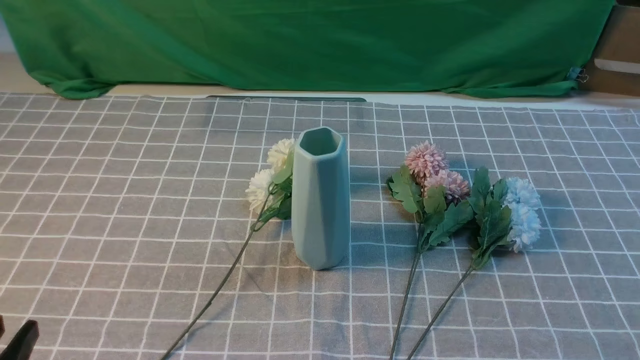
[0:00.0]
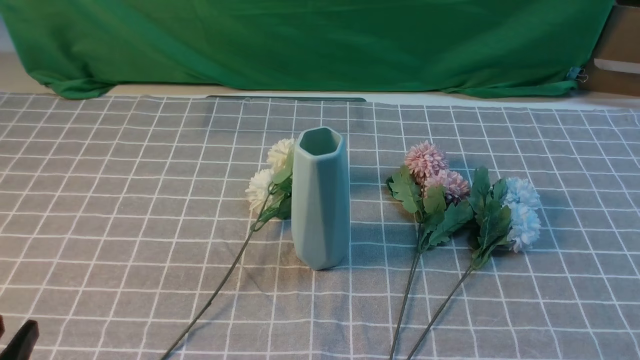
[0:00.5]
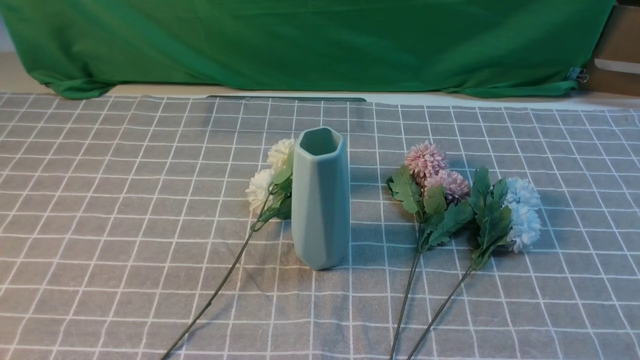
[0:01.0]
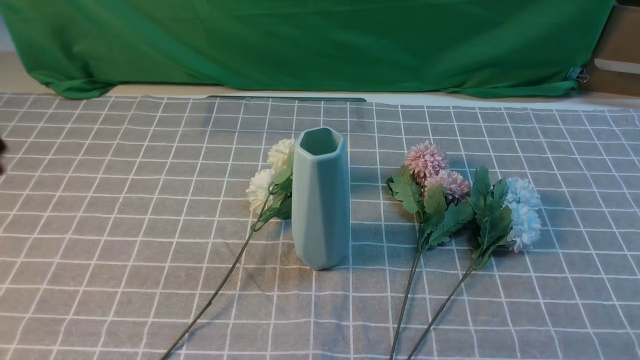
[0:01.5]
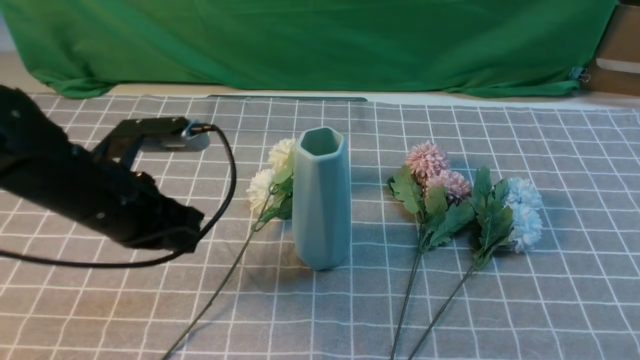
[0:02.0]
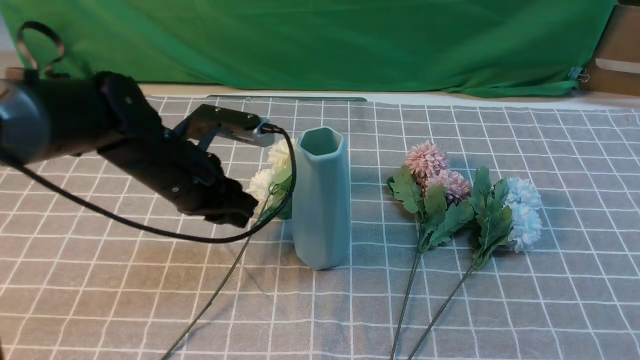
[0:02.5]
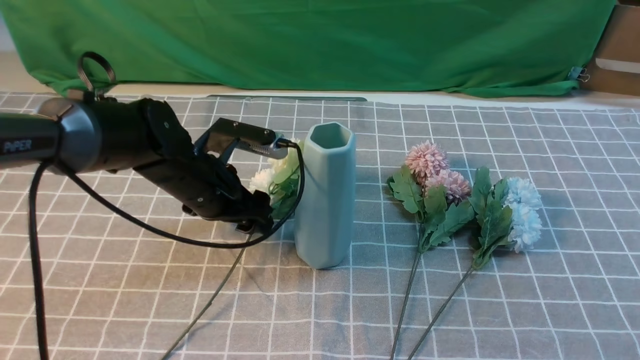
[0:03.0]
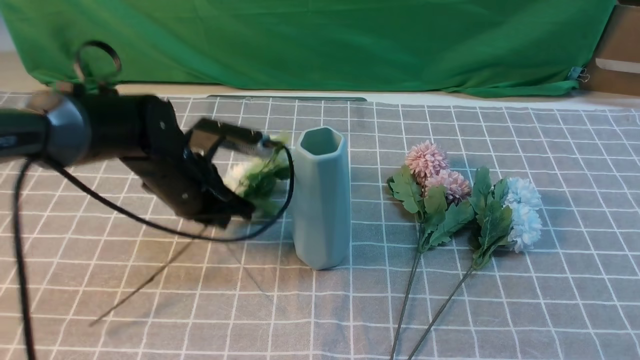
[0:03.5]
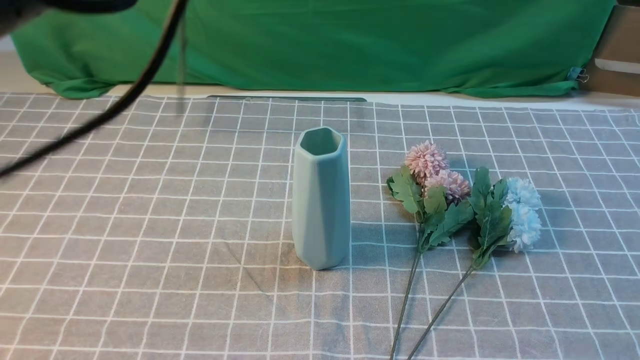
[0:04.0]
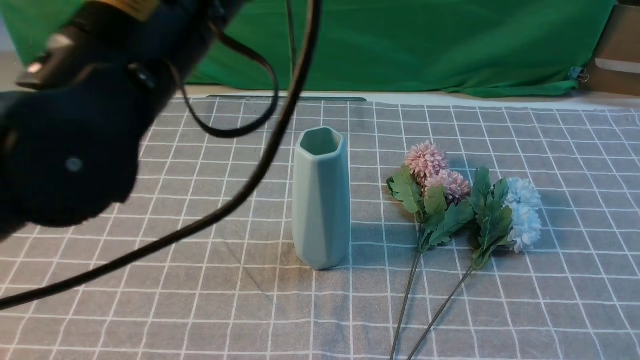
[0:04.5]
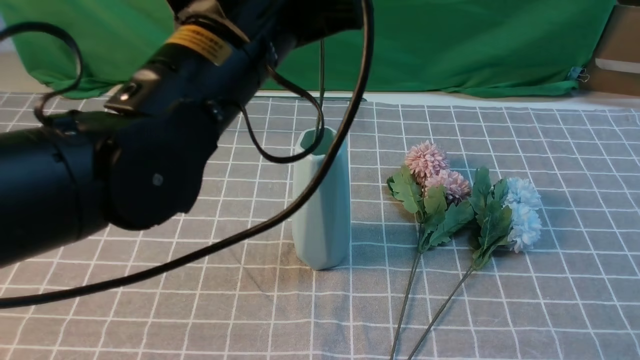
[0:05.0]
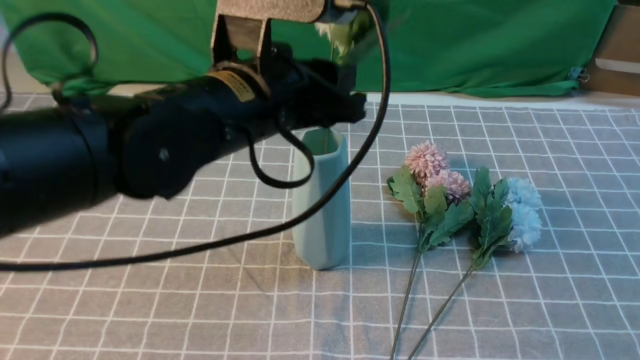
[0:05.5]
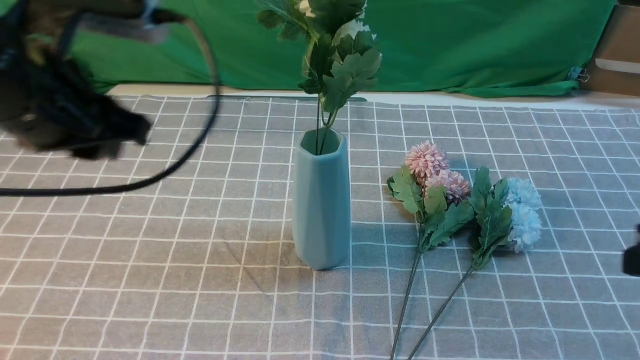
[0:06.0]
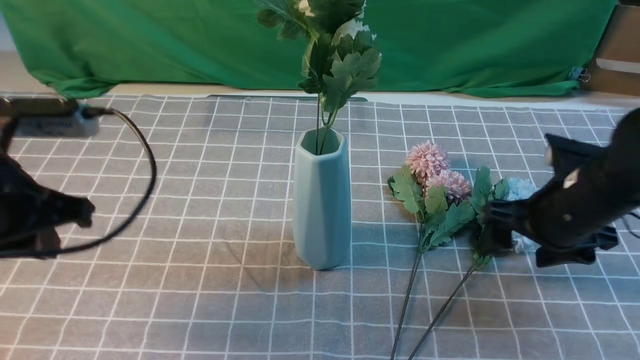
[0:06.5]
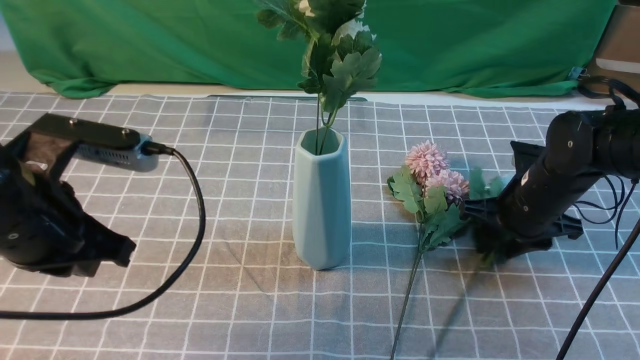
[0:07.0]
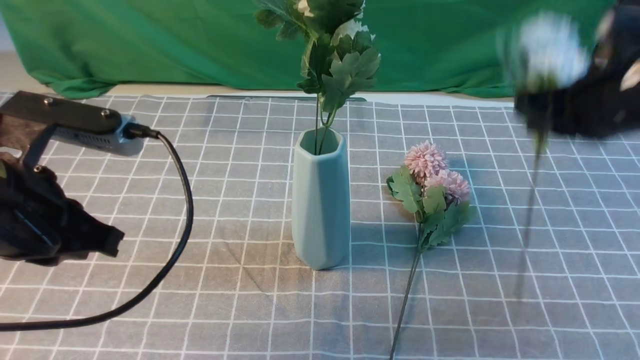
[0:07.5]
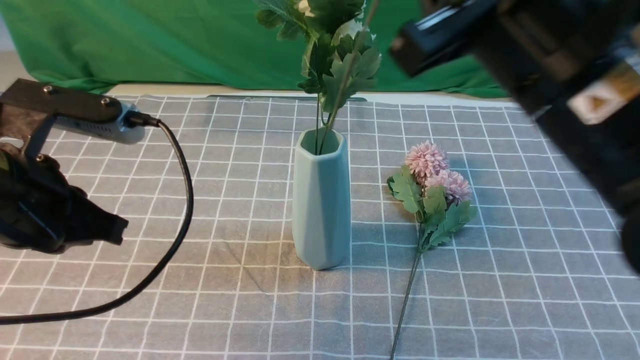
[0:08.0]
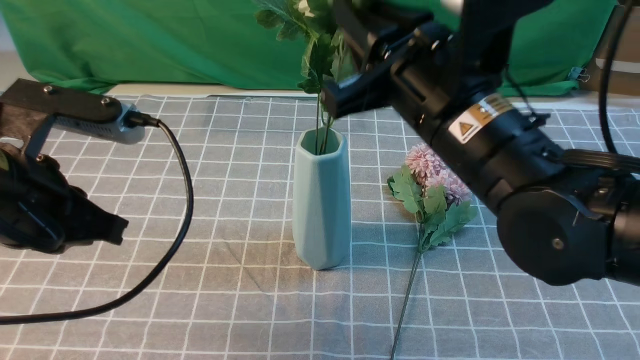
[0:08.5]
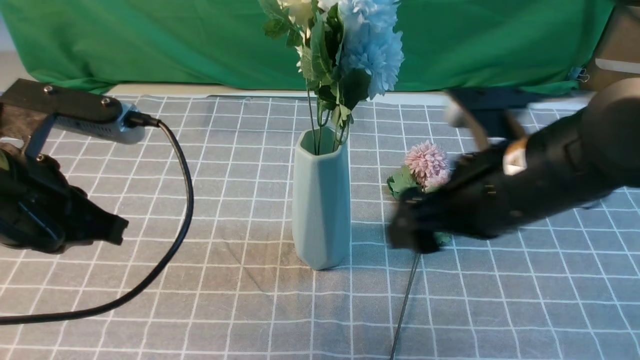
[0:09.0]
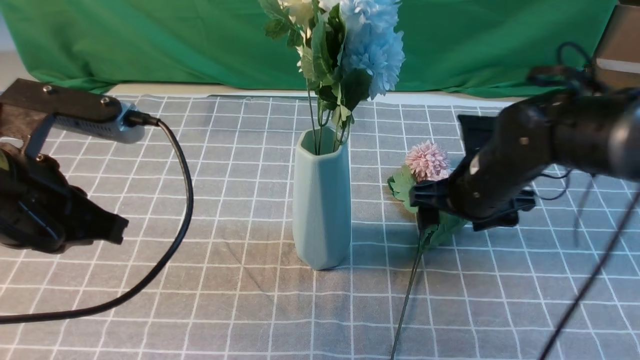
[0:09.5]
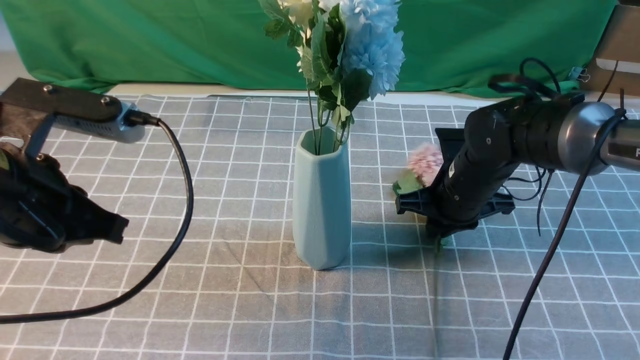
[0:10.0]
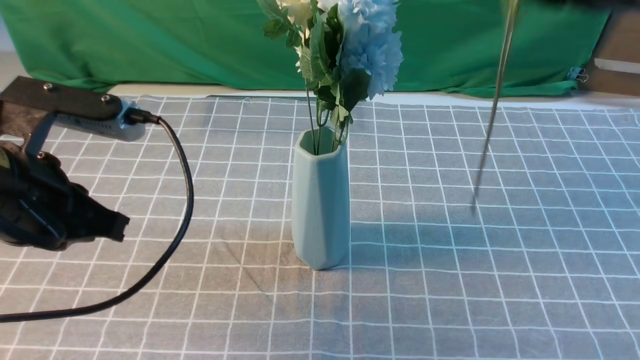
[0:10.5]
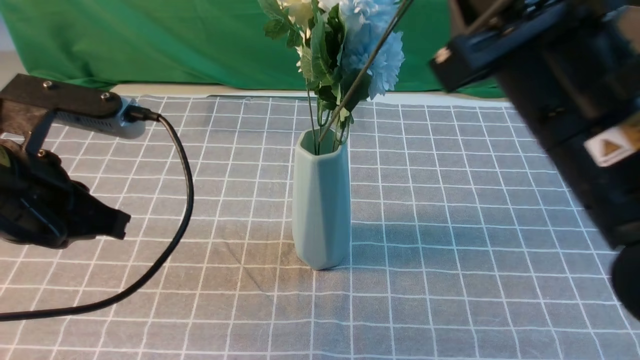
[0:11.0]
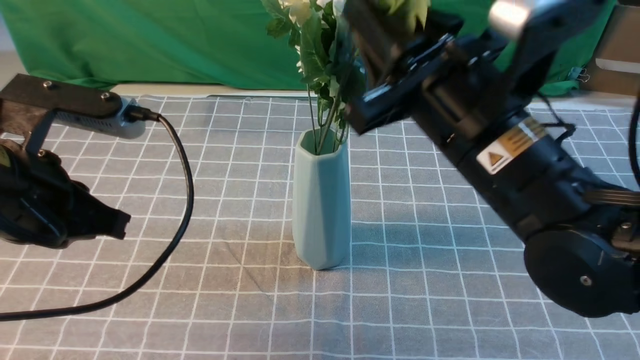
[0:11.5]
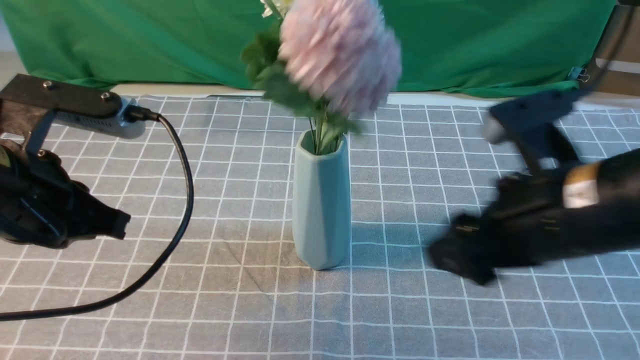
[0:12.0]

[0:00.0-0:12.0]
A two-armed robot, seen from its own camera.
Task of the whole recording: insert the flowers into the vase on the table with the grey tablecloth.
Step, 0:00.0 to 0:03.0: use the left arm to grab a bunch of fresh flowers.
Step, 0:03.5 to 0:05.5: use the left arm to insert the flowers into the vase.
Step, 0:06.0 to 0:07.0: use the right arm to grab a bunch of fresh flowers.
Step, 0:07.5 to 0:08.5: use the right arm to insert the flowers into the vase.
Step, 0:09.0 to 0:09.5: use the right arm to grab a bunch of fresh flowers.
Step, 0:10.5 to 0:11.5: use the right arm to insert the flowers into the vase.
0:00.0 to 0:02.0: The right gripper heads upward, covering some 5 cm, while the left gripper shifts some 25 cm forward, and closes its fingers.
0:02.0 to 0:04.0: The left gripper moves upward, some 20 cm, and opens and closes again, while the right gripper travels upward by approximately 10 cm.
0:04.0 to 0:06.0: The right gripper heads forward, covering roughly 10 cm. The left gripper shifts roughly 10 cm downward and to the left, and opens.
0:06.0 to 0:08.0: The right gripper shifts about 20 cm to the left and upward, and opens, then closes again. The left gripper is displaced backward by some 5 cm, and closes up.
0:08.0 to 0:10.0: The right gripper travels downward and forward by approximately 25 cm, and opens and closes again.
0:10.0 to 0:12.0: The right gripper goes roughly 25 cm backward and upward.

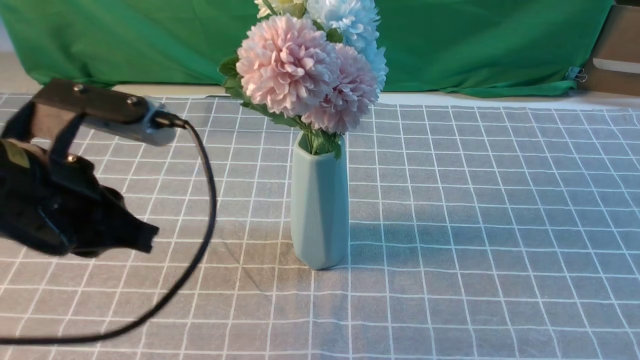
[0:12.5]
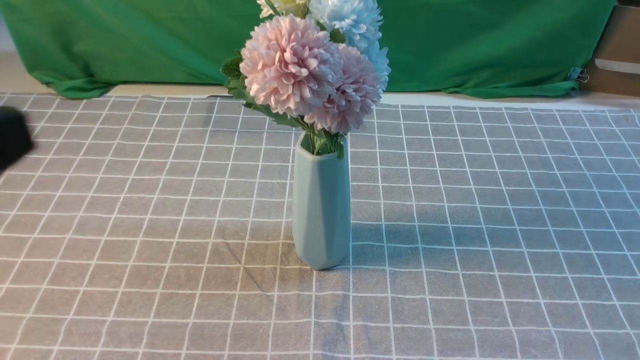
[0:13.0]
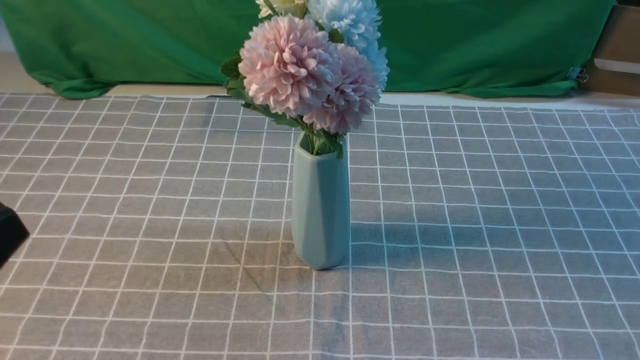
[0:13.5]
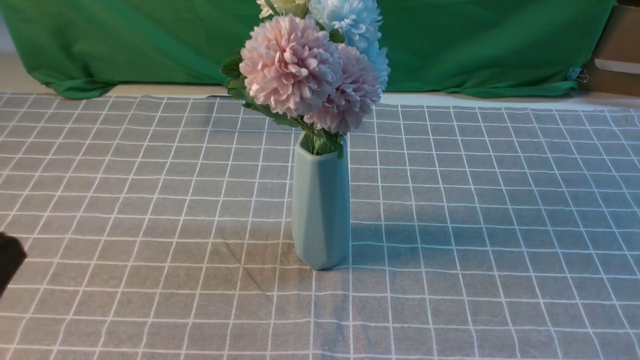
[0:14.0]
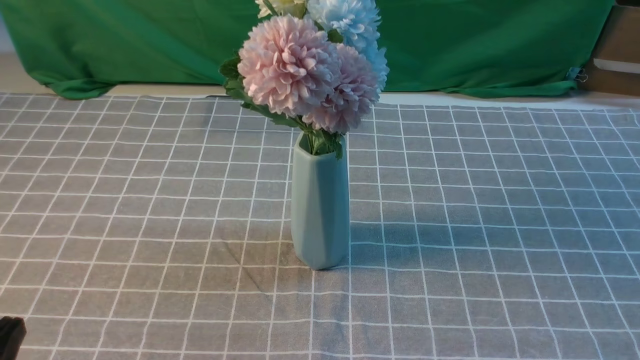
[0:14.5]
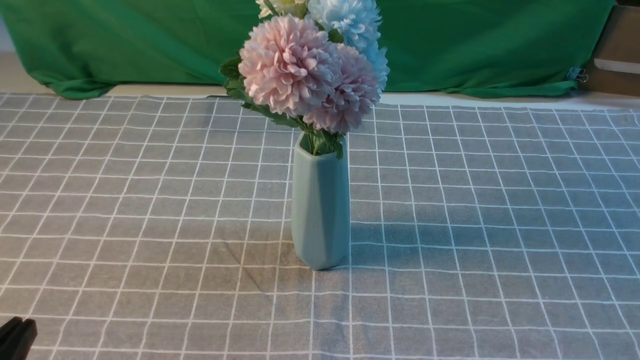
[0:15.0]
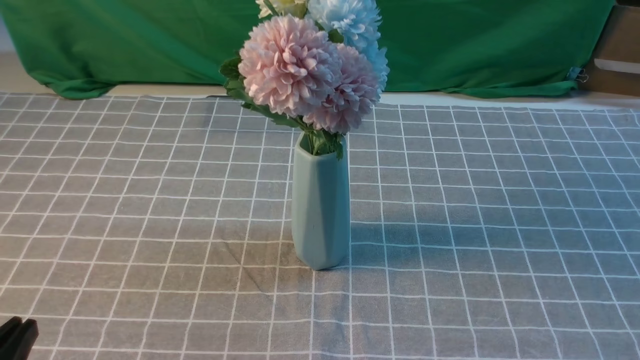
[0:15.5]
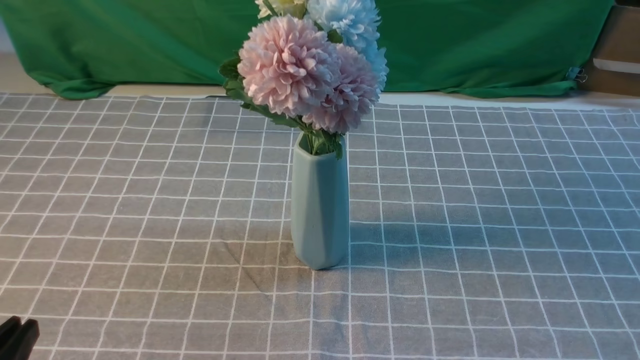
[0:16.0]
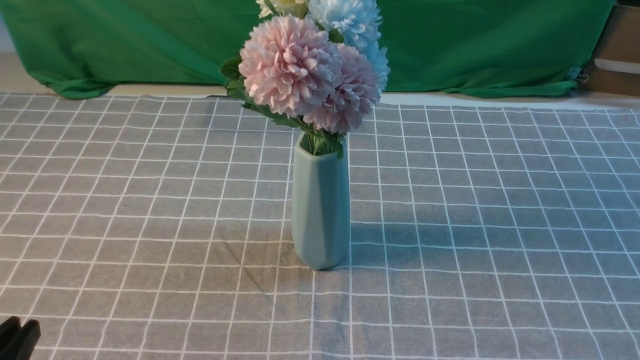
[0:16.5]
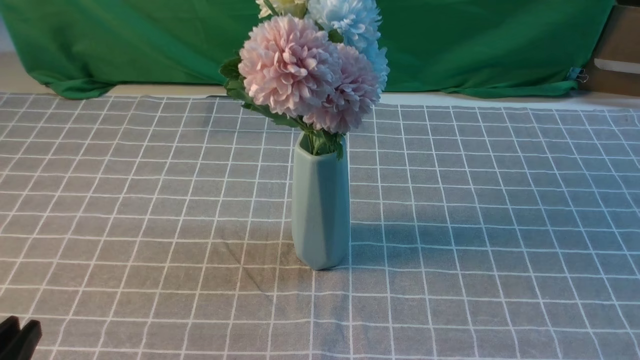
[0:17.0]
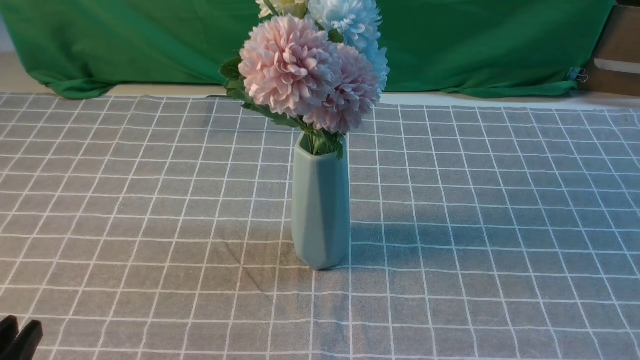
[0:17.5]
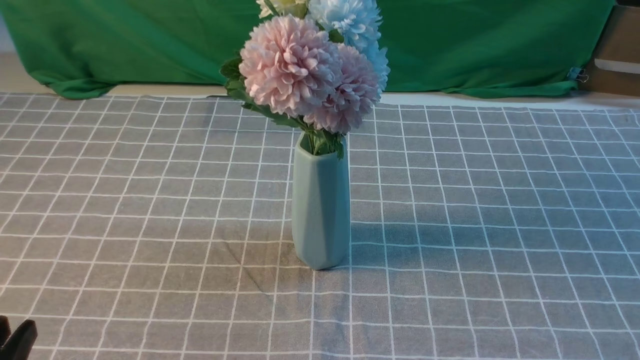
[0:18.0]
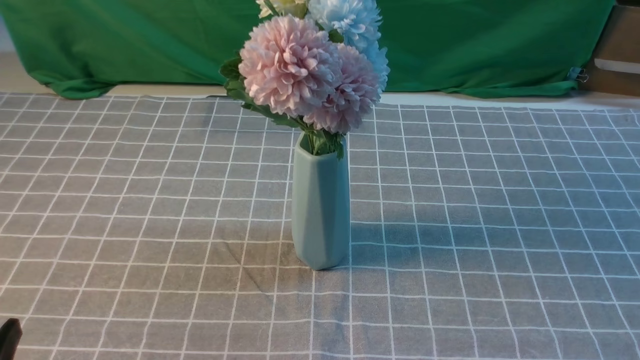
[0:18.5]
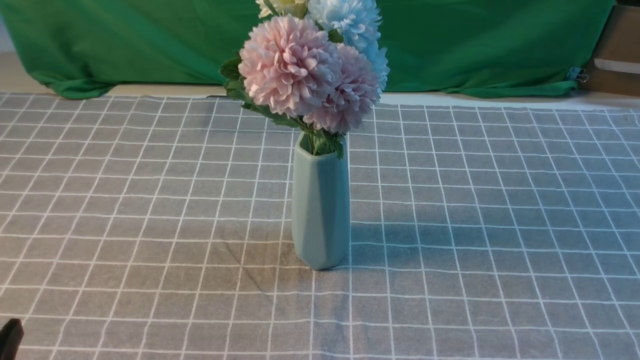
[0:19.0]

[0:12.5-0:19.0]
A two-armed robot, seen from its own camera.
Task of the whole recording: insert the flowers into the vase on the table with the grey tablecloth.
0:12.5 to 0:14.5: The right gripper shifts about 5 cm downward, while the left gripper is displaced downward, backward and to the left by about 20 cm.
